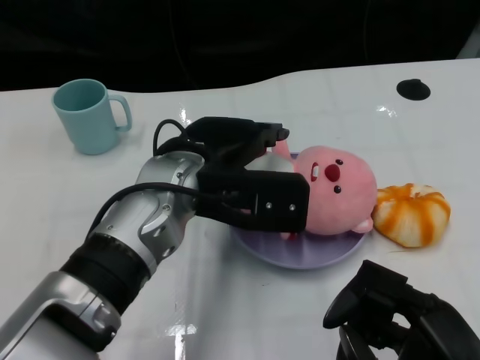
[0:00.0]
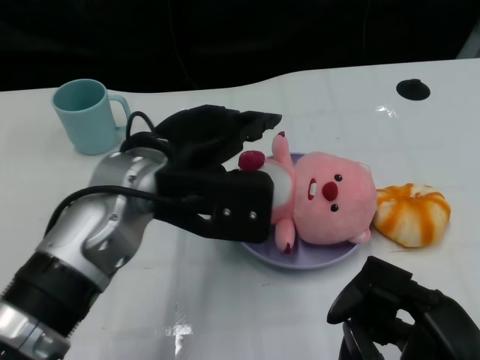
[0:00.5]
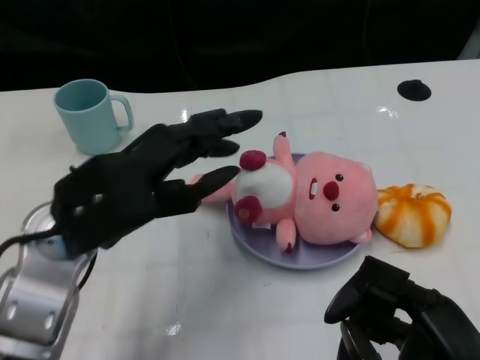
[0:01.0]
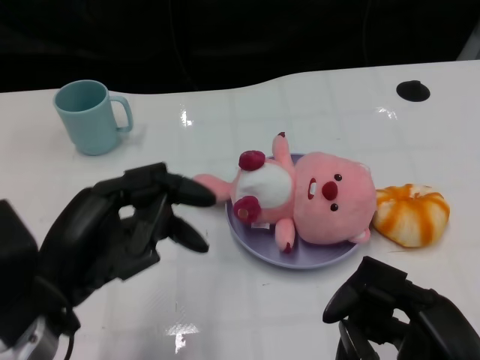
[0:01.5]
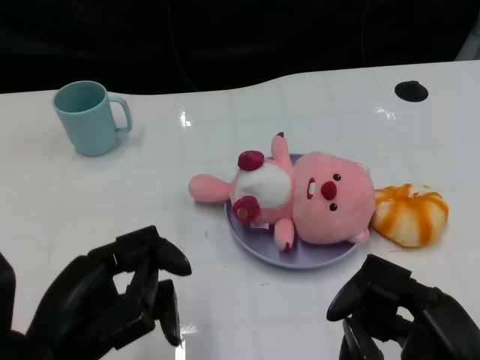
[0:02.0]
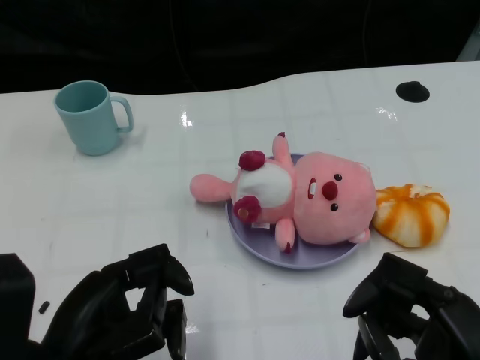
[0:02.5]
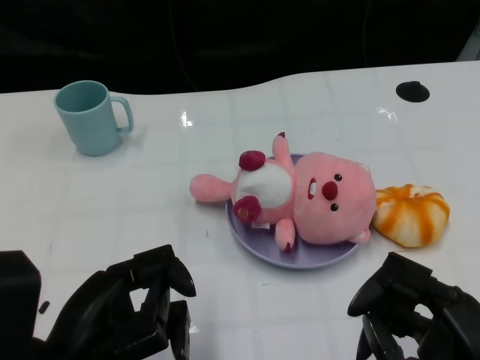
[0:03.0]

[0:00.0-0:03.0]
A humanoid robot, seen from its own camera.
Task of the whole recording: Pick up the doll on one side of the plate and place it into the plate.
0:00.0 to 0:01.5: The left hand shifts approximately 20 cm to the left and backward.
0:01.5 to 0:03.0: The left hand ends up about 5 cm from where it was.

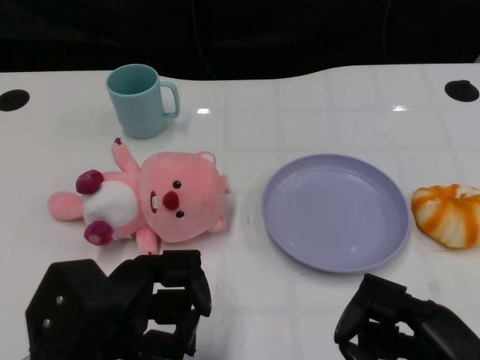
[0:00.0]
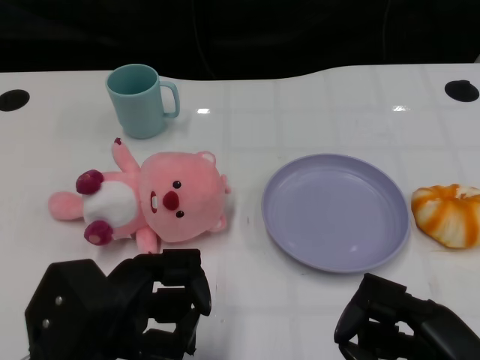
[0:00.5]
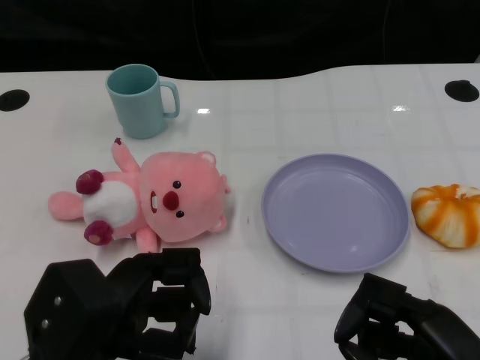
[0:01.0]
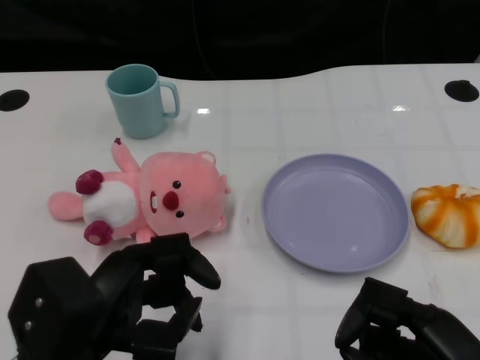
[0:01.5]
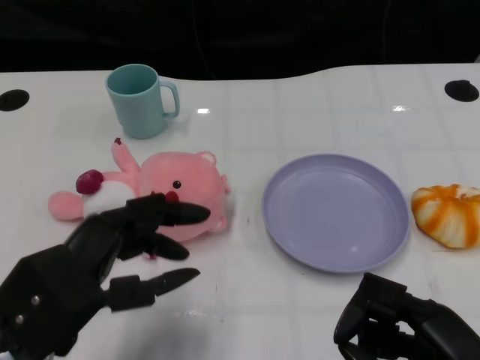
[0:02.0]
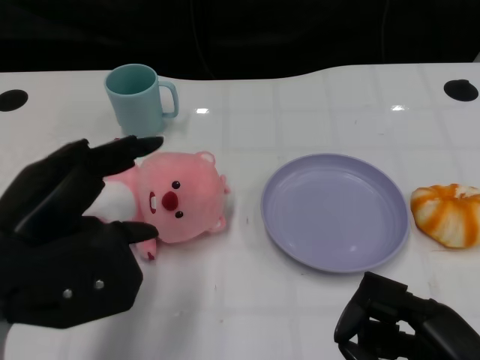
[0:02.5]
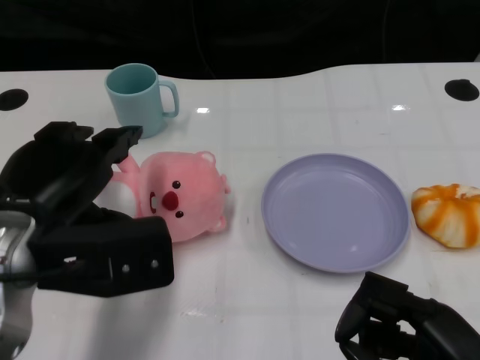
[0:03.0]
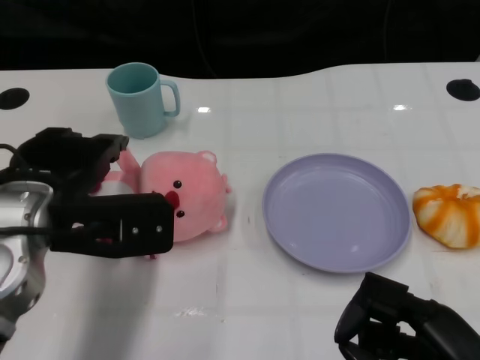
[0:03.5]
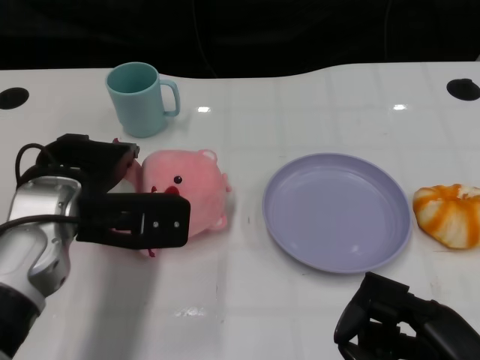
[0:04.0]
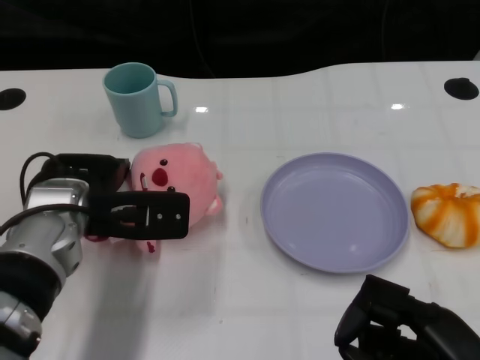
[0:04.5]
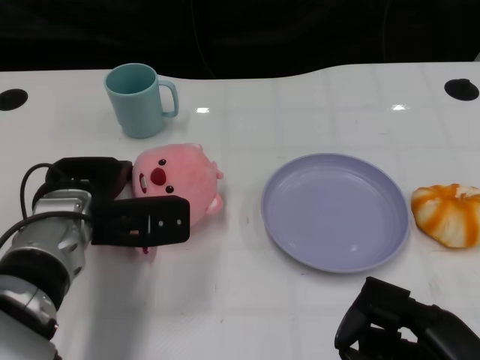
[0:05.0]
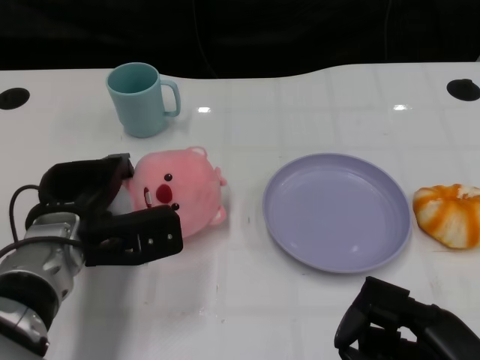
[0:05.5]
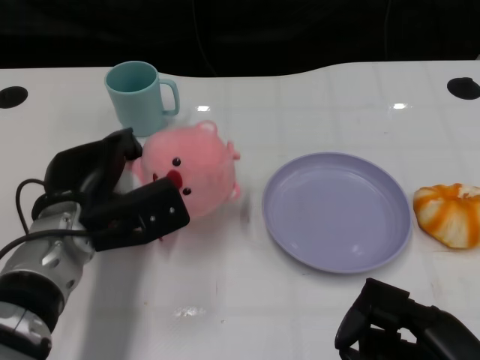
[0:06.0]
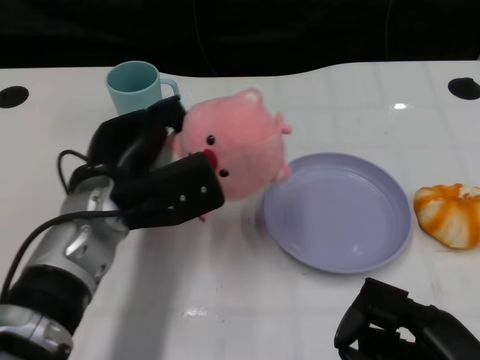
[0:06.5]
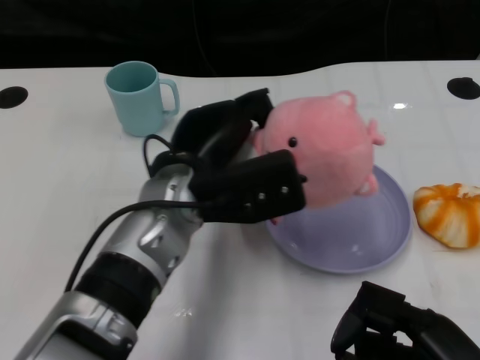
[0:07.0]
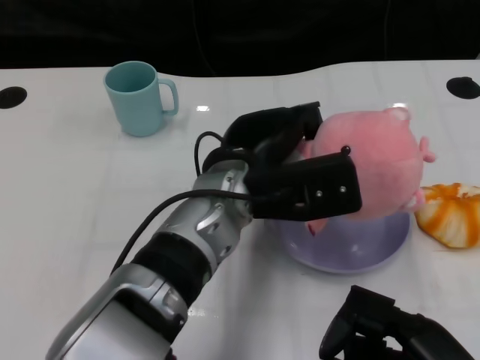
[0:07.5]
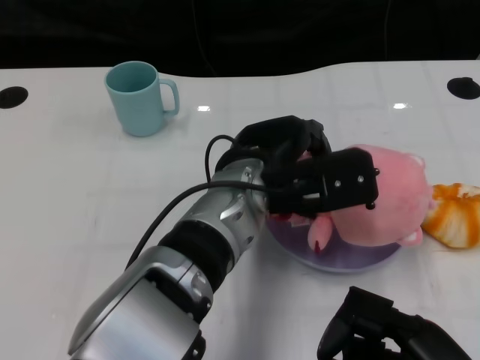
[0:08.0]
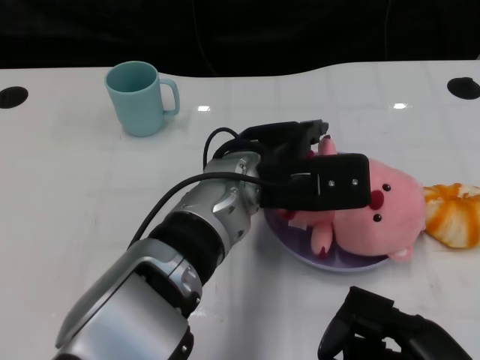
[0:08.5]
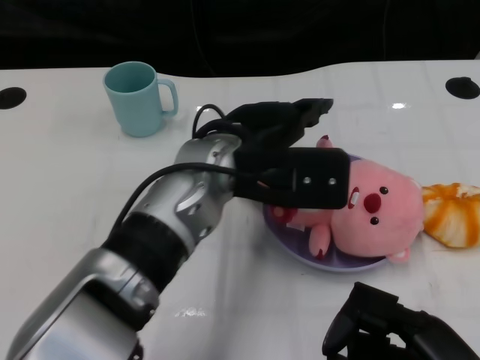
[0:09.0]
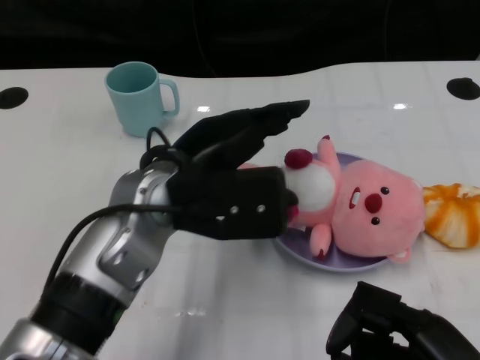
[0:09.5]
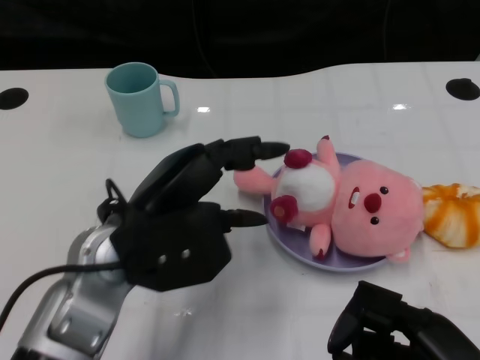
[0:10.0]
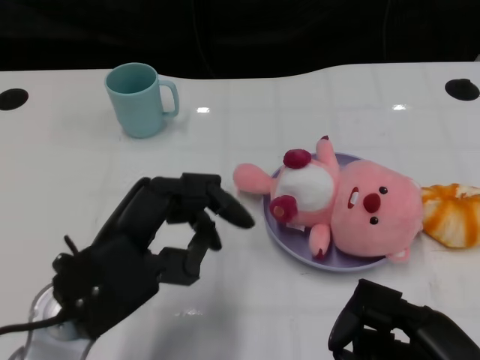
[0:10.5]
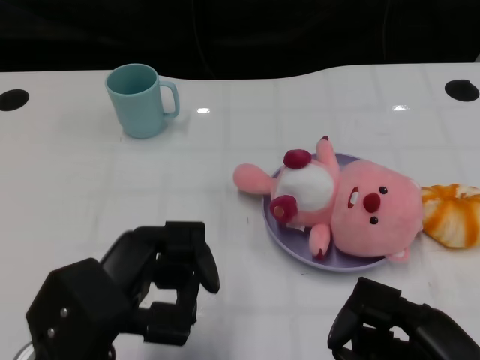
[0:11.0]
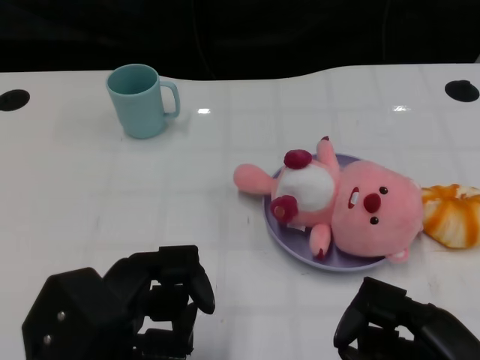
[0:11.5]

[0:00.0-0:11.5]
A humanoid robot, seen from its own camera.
Task of the whole recording: Pick up the doll on one side of the plate and place it into the plate.
Step, 0:01.5 to 0:05.5: Grasp the pink doll with the left gripper.
Step, 0:06.5 to 0:08.5: Place the pink doll into the plate with the left gripper.
0:02.0 to 0:04.0: The left hand is displaced forward by about 10 cm.
0:04.0 to 0:06.0: The left hand goes approximately 5 cm downward.
0:06.0 to 0:07.5: The left hand shifts about 15 cm to the right.
0:07.5 to 0:09.5: The left hand heads to the left, covering some 5 cm.
0:09.5 to 0:11.5: The left hand travels backward and to the left by roughly 15 cm.

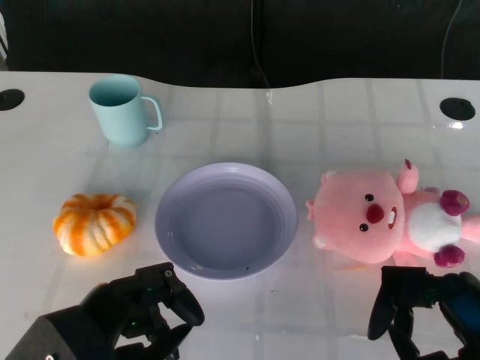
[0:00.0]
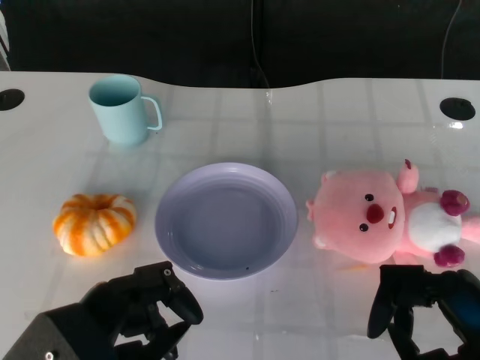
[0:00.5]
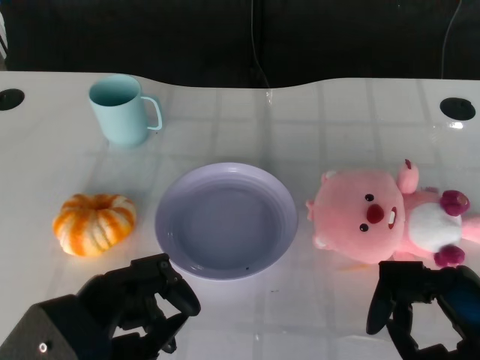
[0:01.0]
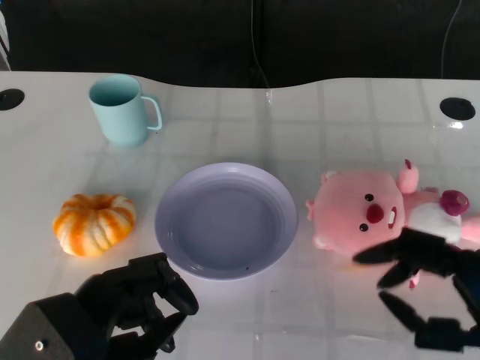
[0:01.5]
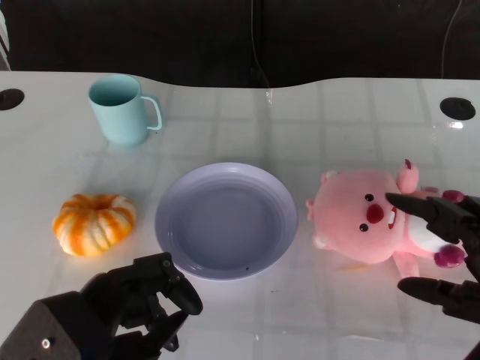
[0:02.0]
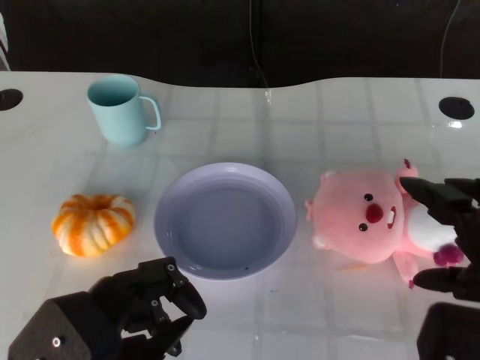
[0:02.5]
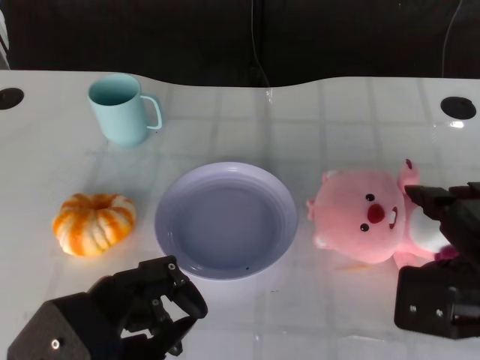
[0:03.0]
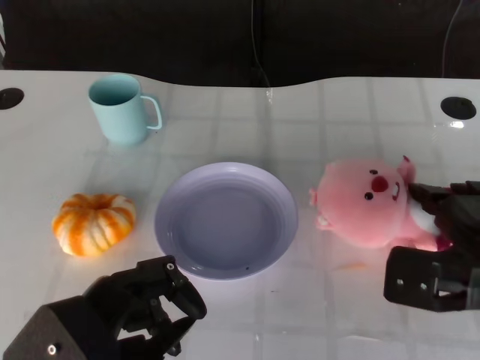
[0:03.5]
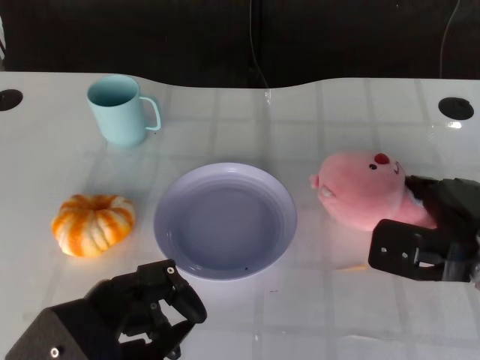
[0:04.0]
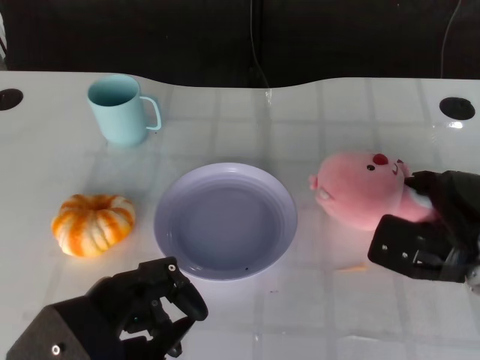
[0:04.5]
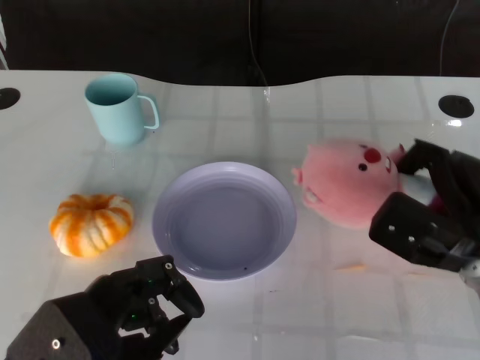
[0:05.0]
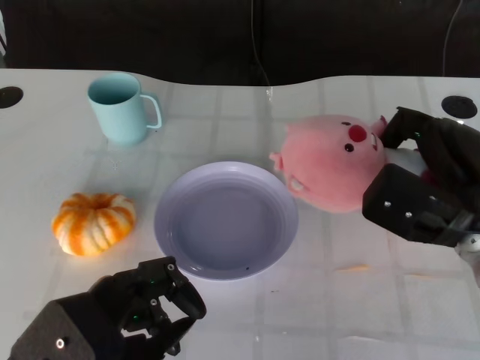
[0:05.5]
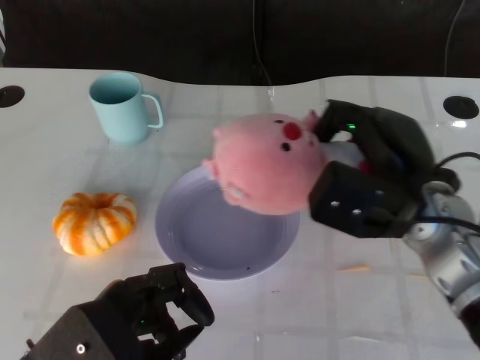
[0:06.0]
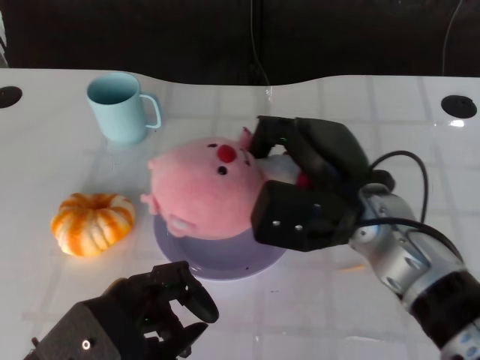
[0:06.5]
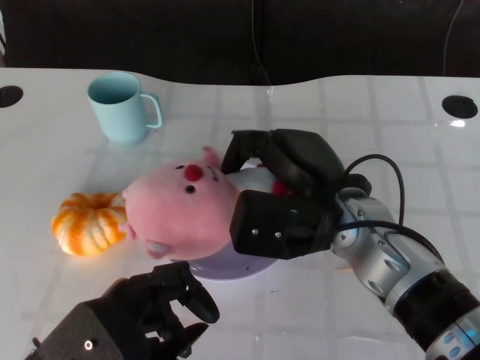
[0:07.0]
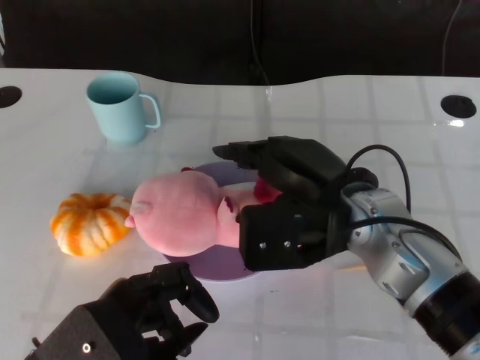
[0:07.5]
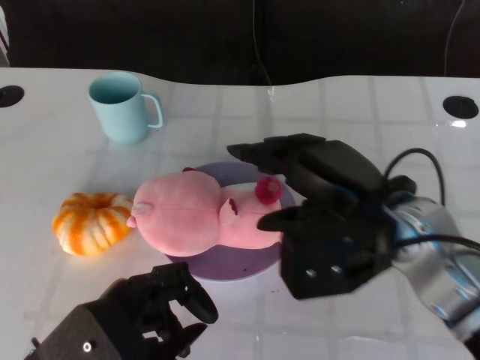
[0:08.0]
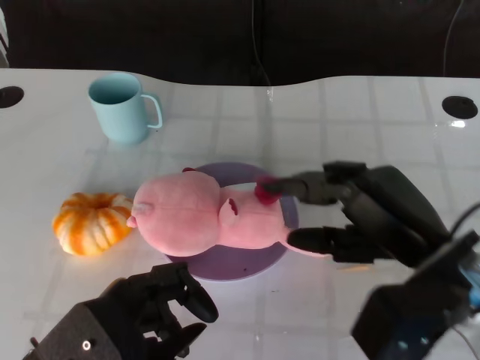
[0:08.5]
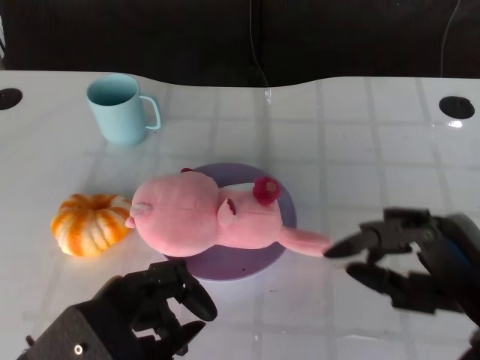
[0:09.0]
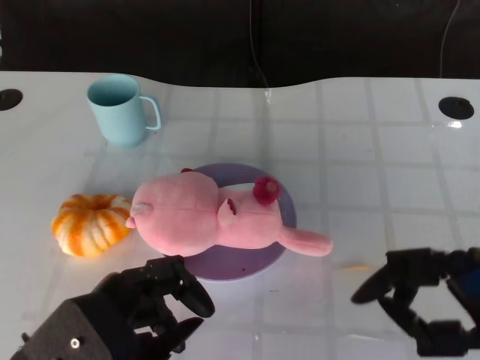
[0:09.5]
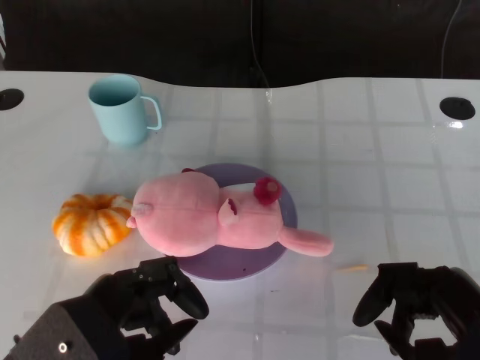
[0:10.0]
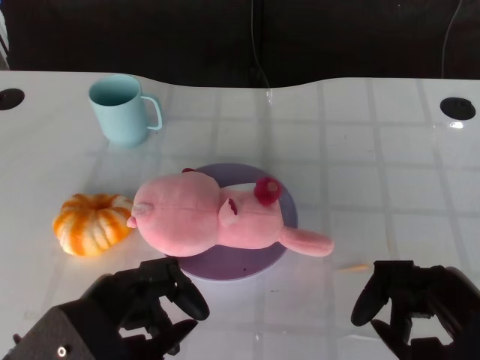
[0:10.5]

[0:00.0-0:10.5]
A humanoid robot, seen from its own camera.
Task of the whole recording: Pick up the doll on the other side of the plate and place it into the plate.
Step, 0:01.0 to 0:05.5: Grasp the pink doll with the right gripper.
Step, 0:06.0 to 0:08.0: Place the pink doll into the plate with the right gripper.
0:02.0 to 0:04.0: The right hand shifts roughly 15 cm forward and downward.
0:04.0 to 0:06.5: The right hand travels to the left and upward by roughly 15 cm.
0:06.5 to 0:08.5: The right hand is displaced to the right and backward by roughly 10 cm.
0:08.5 to 0:10.5: The right hand goes approximately 10 cm backward and to the right.
